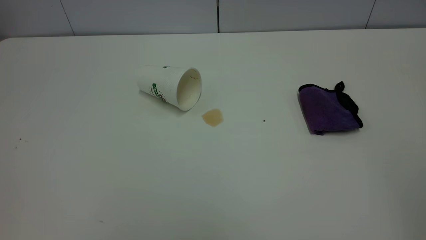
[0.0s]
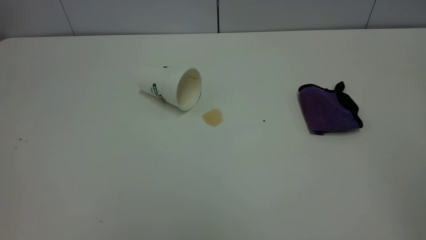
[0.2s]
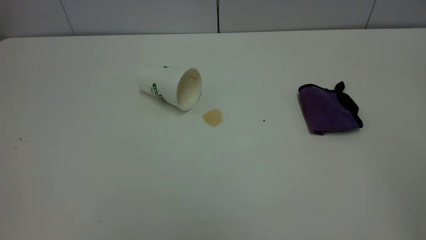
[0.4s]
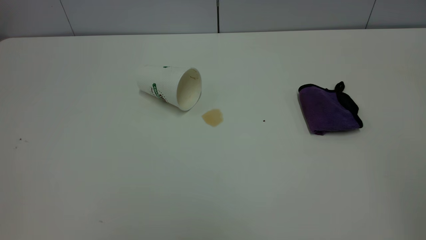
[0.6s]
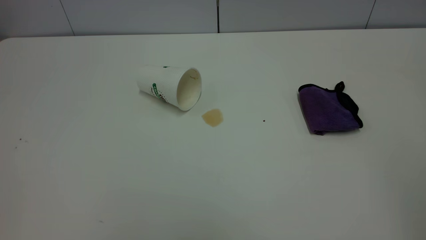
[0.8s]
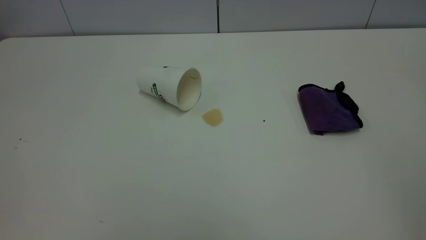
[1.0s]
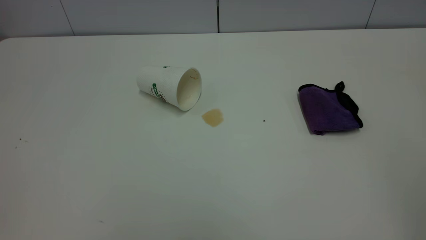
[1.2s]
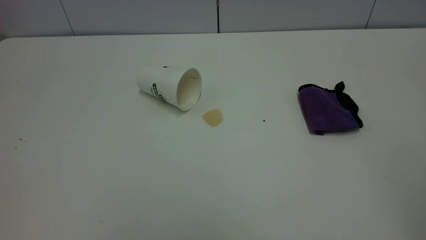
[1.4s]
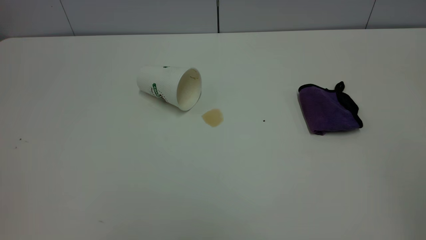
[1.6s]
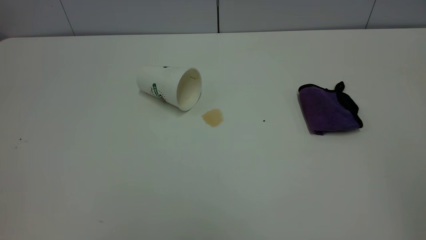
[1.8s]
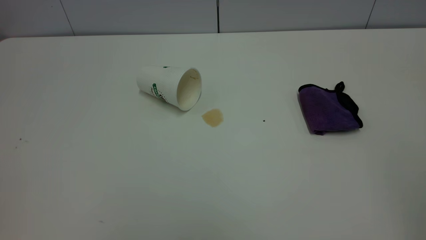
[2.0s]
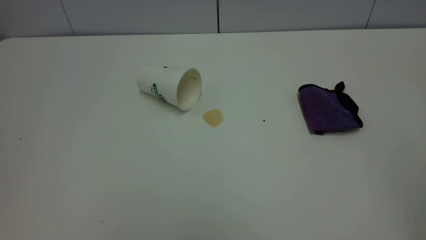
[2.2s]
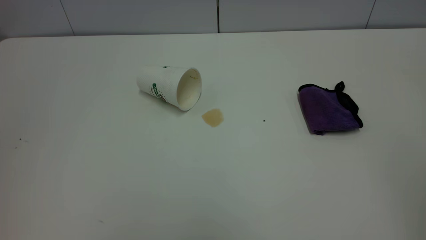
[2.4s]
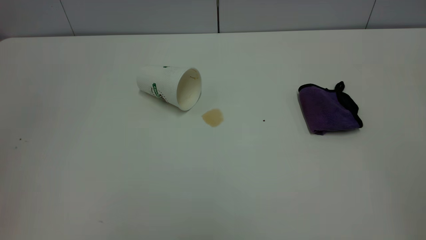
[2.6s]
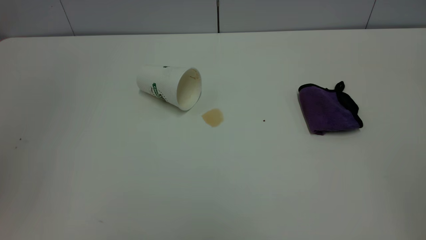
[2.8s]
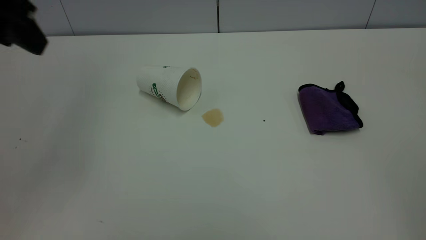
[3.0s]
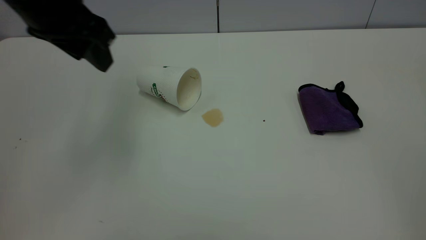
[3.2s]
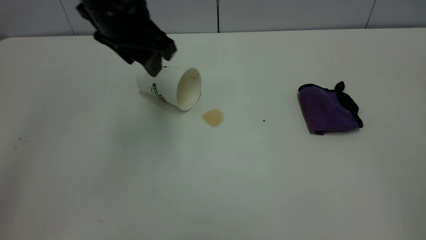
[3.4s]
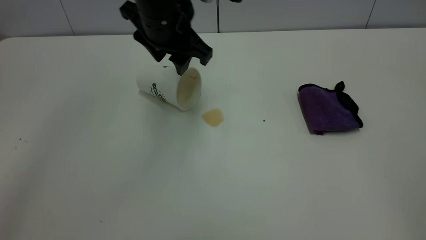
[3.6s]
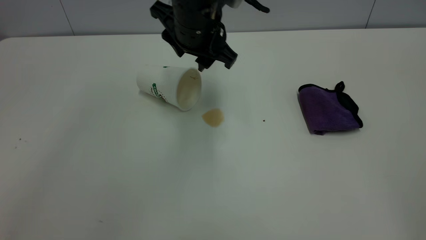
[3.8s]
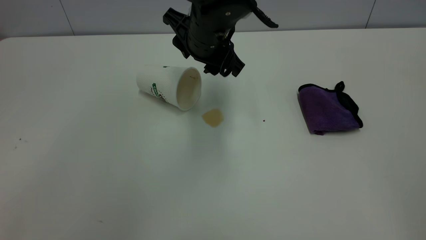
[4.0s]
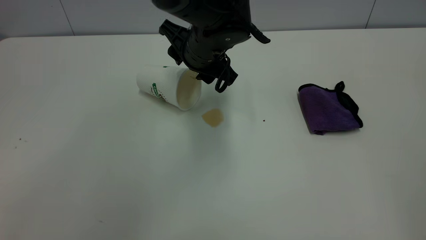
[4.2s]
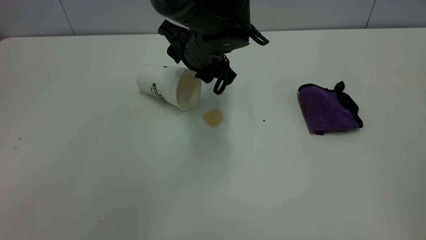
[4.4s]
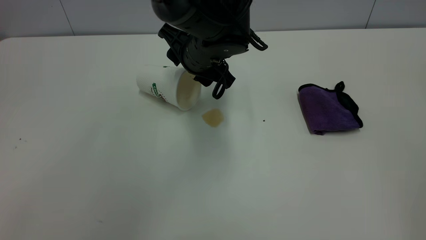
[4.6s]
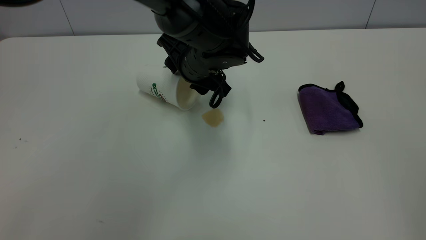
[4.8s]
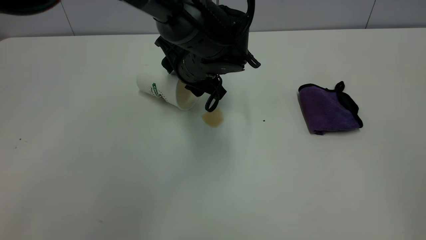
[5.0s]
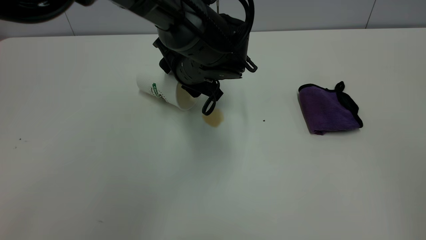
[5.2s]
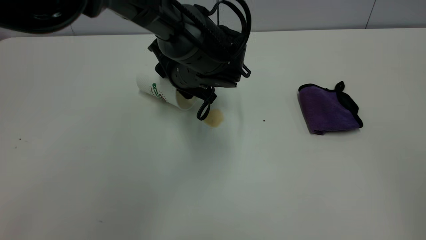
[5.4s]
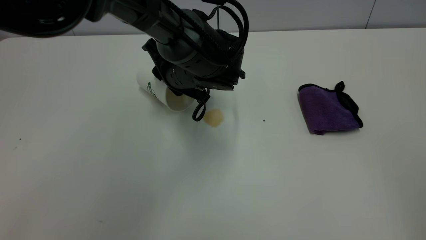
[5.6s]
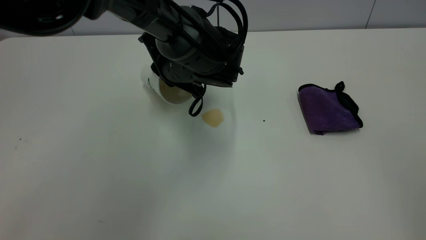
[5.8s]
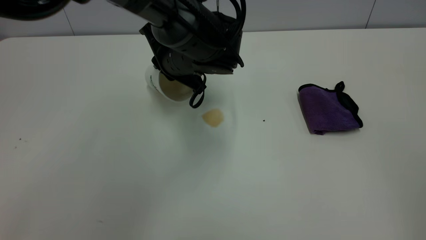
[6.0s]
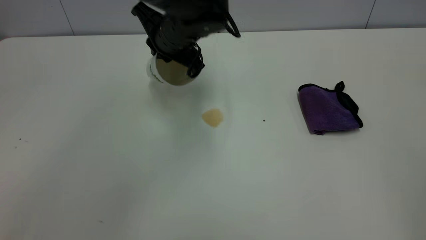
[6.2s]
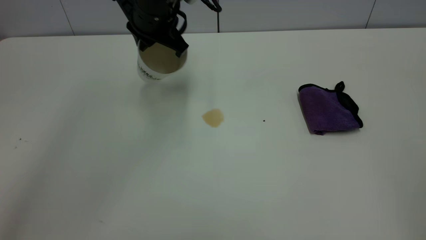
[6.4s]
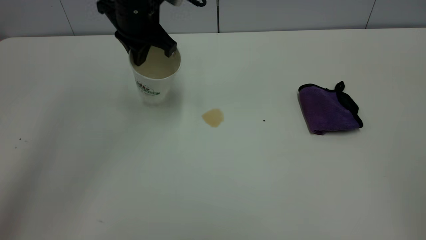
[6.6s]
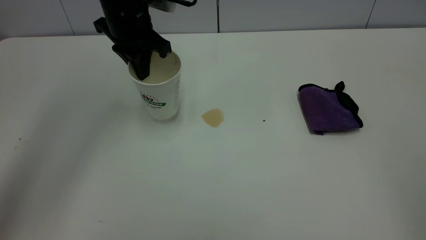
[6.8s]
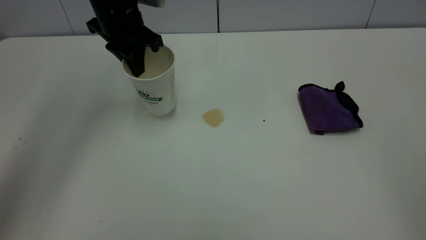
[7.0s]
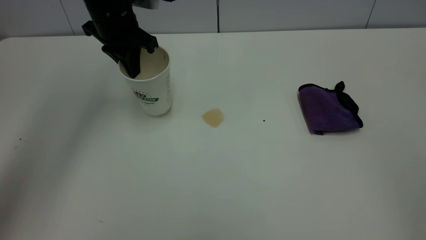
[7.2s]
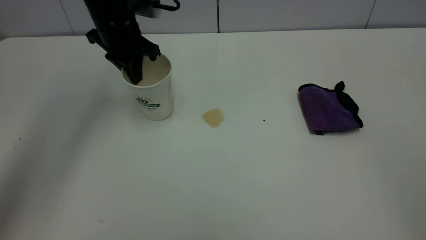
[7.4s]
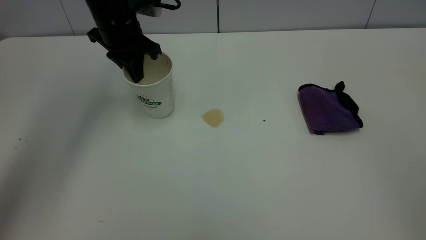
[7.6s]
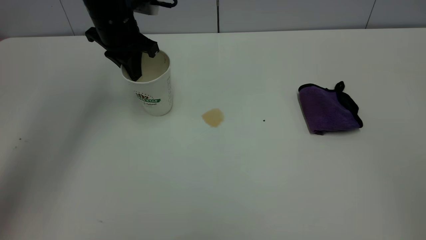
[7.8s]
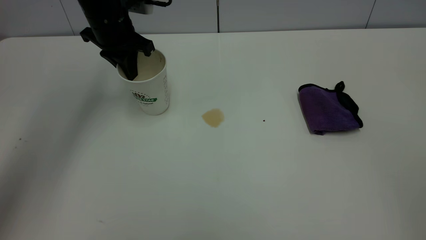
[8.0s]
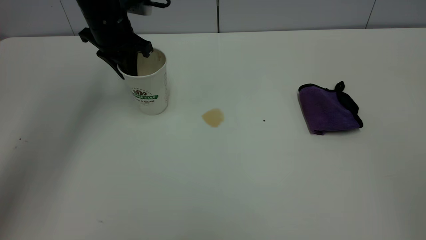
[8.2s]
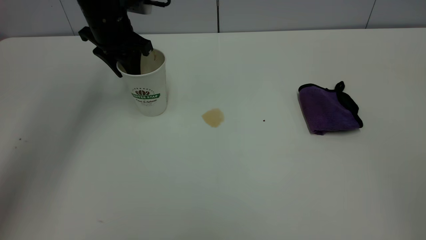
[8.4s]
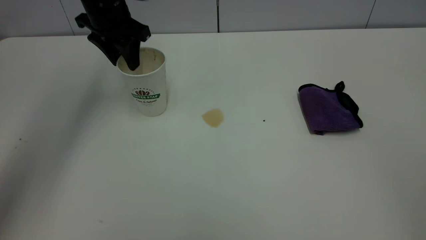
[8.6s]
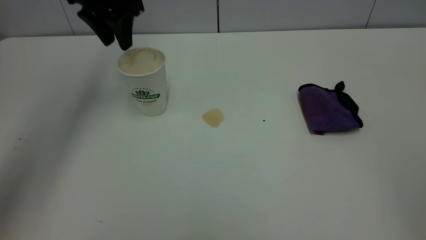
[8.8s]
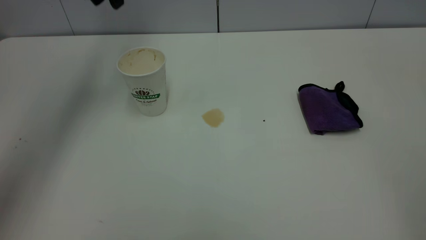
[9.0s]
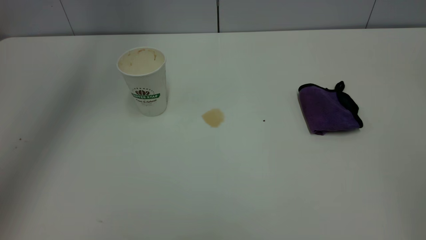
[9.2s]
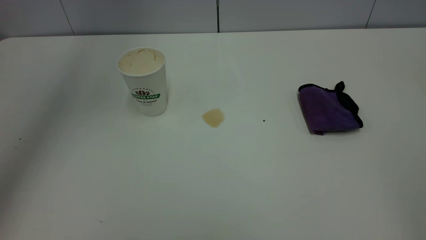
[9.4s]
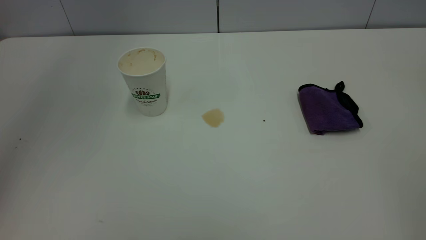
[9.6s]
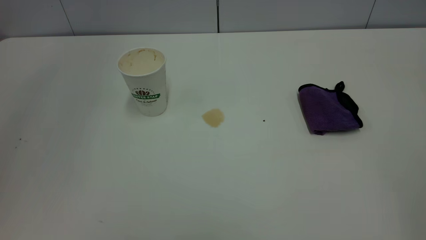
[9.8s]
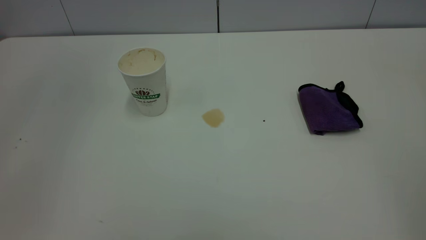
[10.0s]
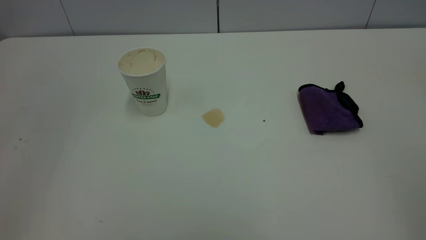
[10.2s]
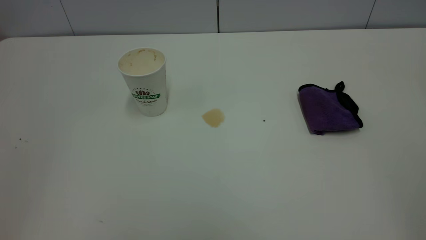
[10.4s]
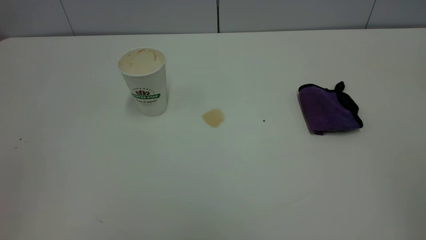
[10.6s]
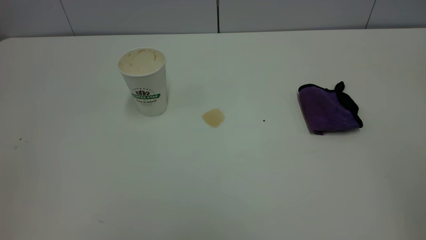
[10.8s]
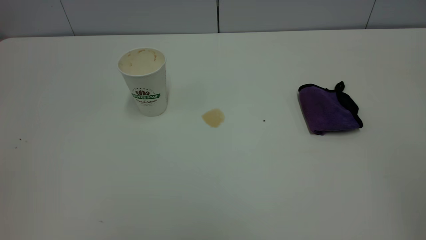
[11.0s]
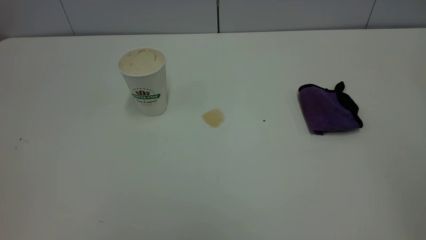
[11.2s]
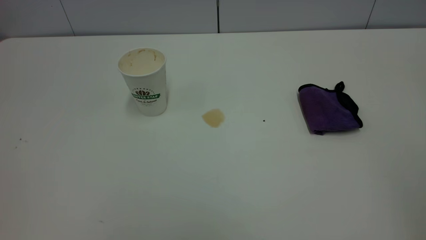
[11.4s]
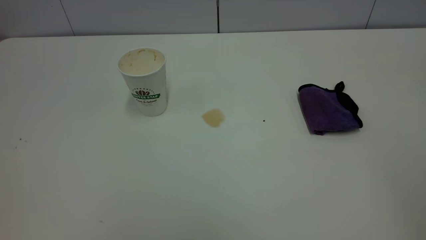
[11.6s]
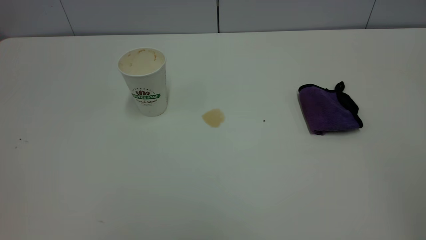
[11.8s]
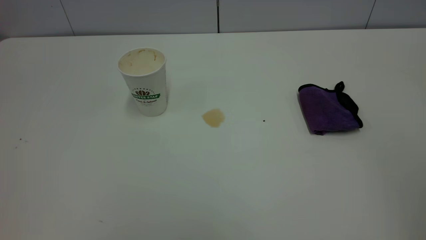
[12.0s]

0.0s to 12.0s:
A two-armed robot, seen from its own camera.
Task of the whole recording: the left gripper pick up the fallen cup and place it upright, the right gripper grasp the purple rag and wipe the tea stain on the table, the right gripper put the purple rag back in its original position.
Step, 0.0s to 8.8s: Stand the paper cup upright.
0.0s to 1.6s: Neither gripper changes place.
1.6s to 3.0s: The left gripper is displaced forward by some 30 cm.
3.0s to 4.4s: The left gripper heads to the right, downward and forward, covering roughly 30 cm.
4.4s to 6.0s: The left gripper closes up.
6.0s to 7.6s: The left gripper moves to the left, forward and upward, some 15 cm.
7.6s to 9.0s: The left gripper is displaced upward by approximately 15 cm, and opens.
9.0s to 10.4s: The left gripper is displaced backward by some 40 cm.

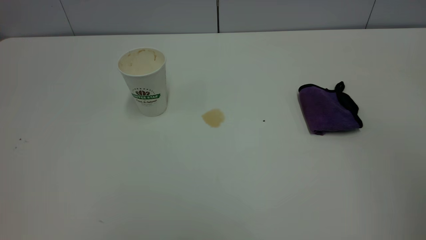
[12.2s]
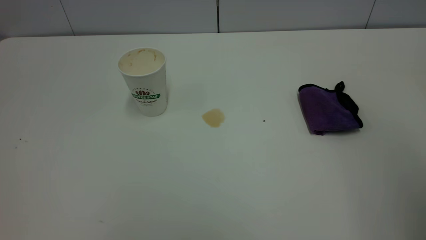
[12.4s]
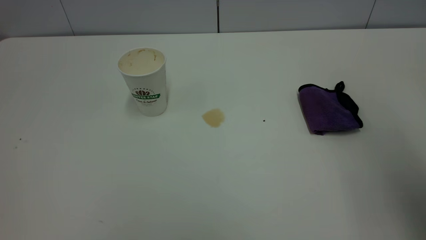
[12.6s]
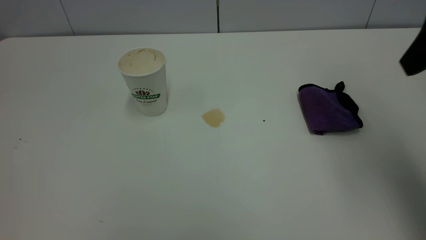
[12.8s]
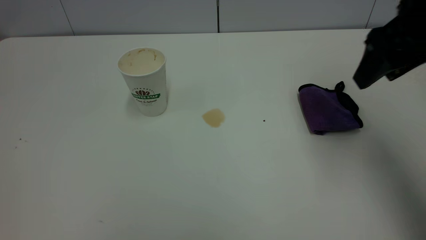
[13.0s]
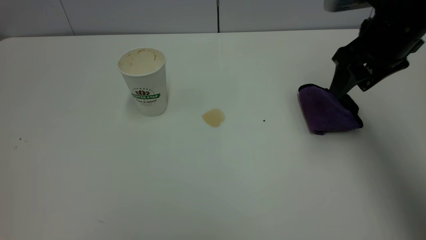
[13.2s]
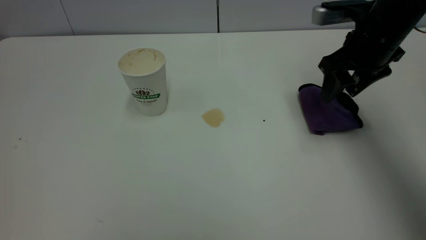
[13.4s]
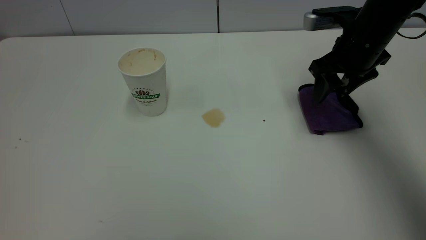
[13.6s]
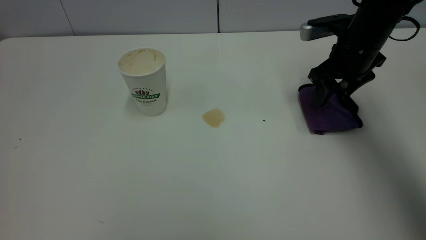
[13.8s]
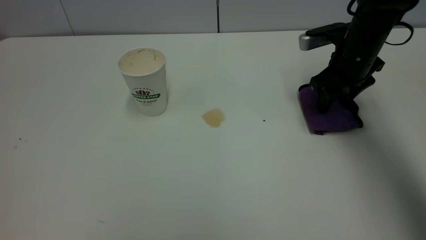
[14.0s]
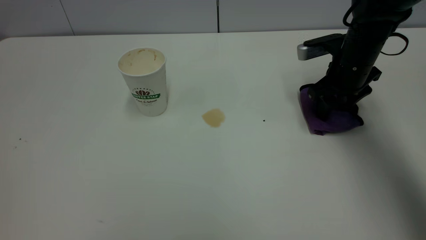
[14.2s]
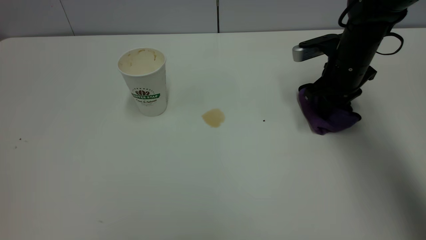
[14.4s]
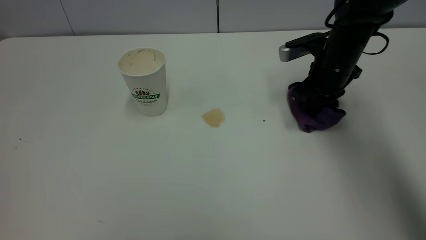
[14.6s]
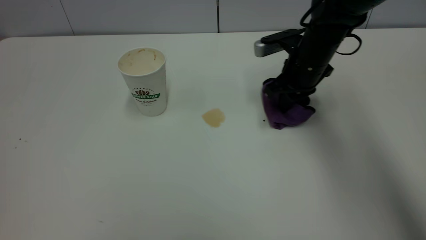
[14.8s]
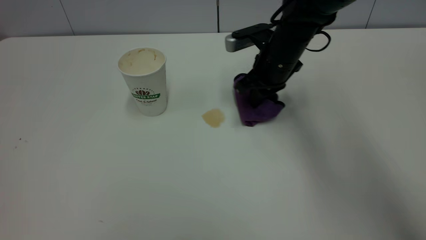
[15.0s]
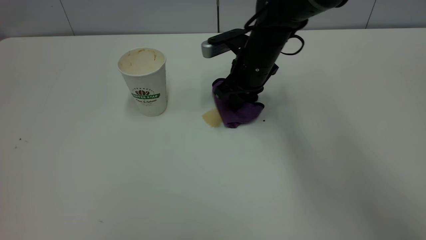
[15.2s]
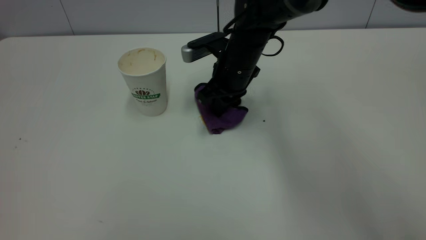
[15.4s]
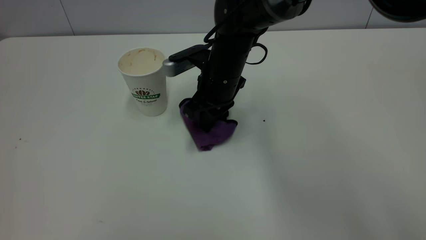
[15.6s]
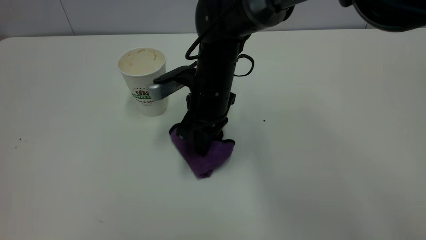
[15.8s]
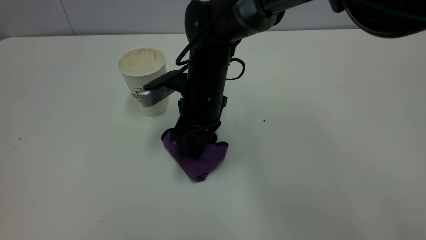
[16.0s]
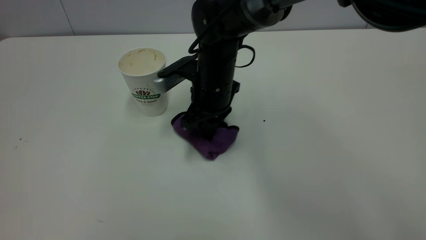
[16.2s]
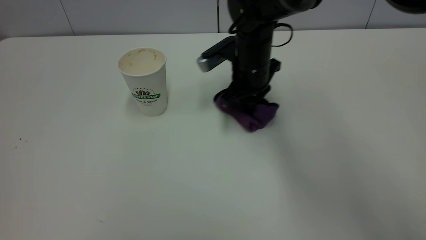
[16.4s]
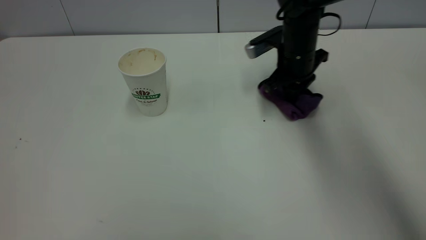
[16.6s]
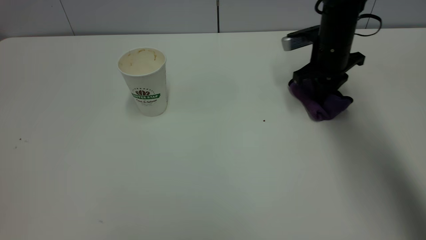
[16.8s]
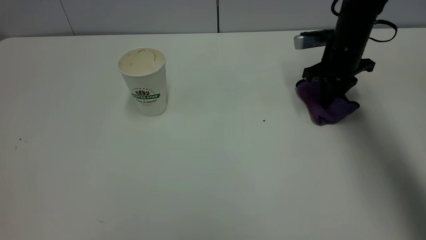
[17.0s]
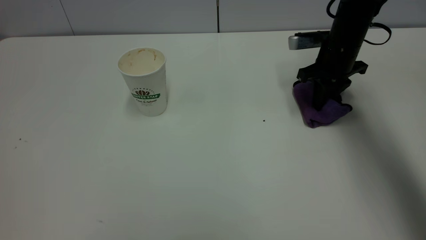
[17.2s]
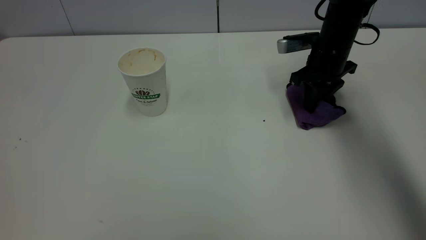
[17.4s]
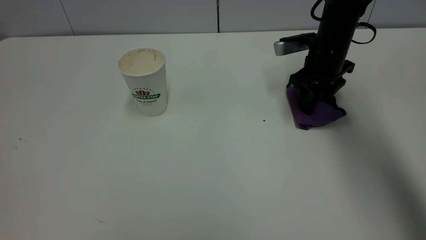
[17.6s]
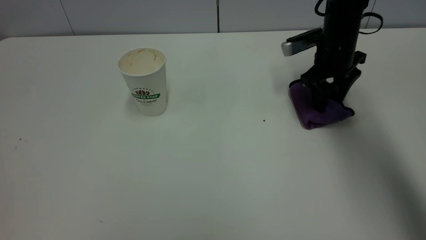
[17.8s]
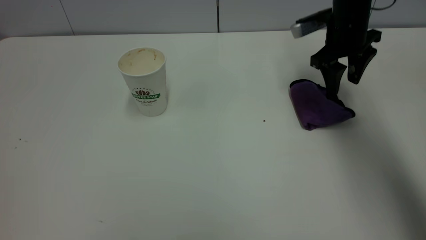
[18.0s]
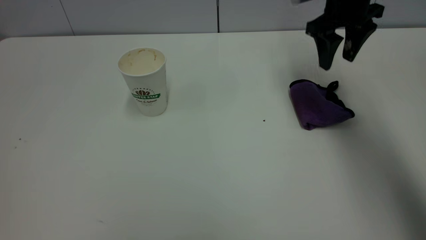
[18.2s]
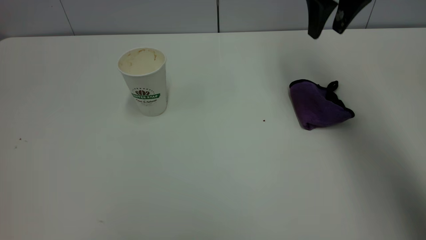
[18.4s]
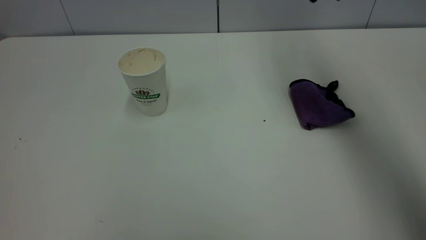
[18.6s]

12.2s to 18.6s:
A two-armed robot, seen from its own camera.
Task of the whole recording: the left gripper pick up the fallen cup and place it upright, the right gripper grasp the purple rag and wipe the tea stain on the table, the right gripper put the purple rag back in its original position.
Step, 12.2s to 18.2s: Wipe the stains off the table with a rag.
12.2s to 13.8s: The right gripper travels forward and downward by some 40 cm.
13.8s to 15.4s: The right gripper shifts about 20 cm to the left, and closes up.
15.4s to 17.0s: The right gripper moves to the right, approximately 20 cm.
17.0s to 18.6s: The right gripper moves upward, roughly 25 cm, and opens.
